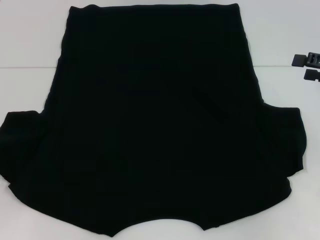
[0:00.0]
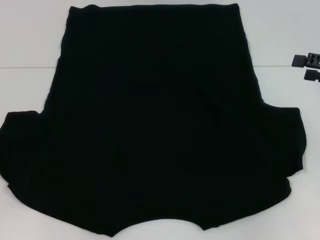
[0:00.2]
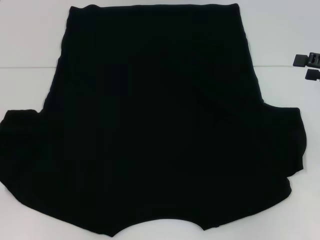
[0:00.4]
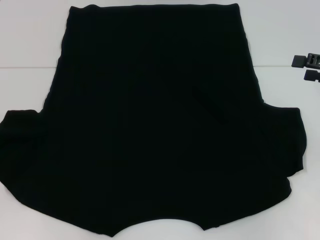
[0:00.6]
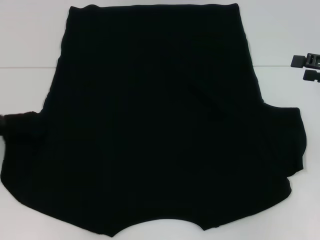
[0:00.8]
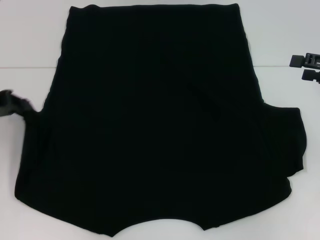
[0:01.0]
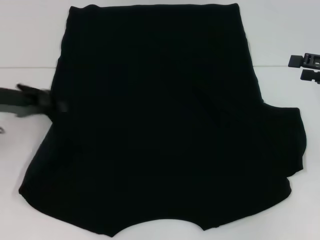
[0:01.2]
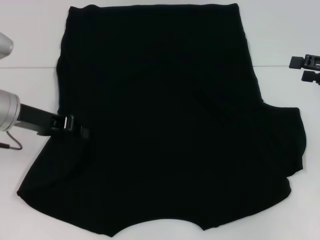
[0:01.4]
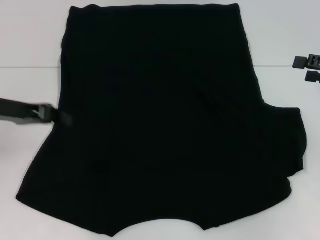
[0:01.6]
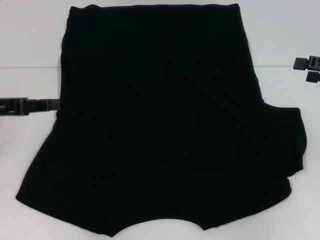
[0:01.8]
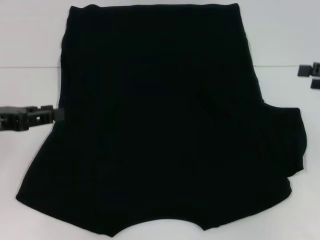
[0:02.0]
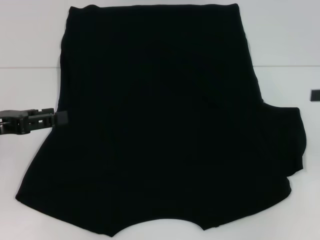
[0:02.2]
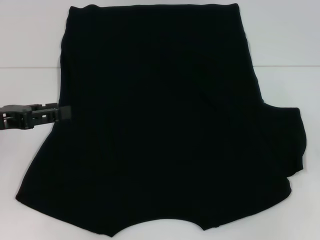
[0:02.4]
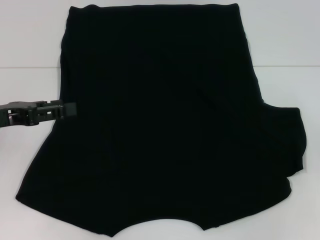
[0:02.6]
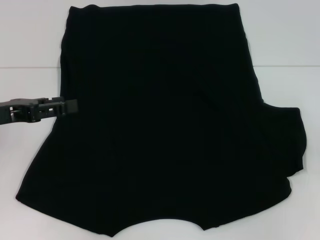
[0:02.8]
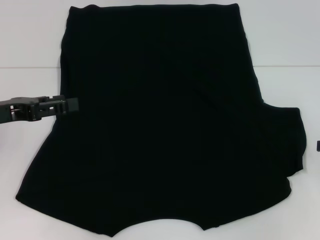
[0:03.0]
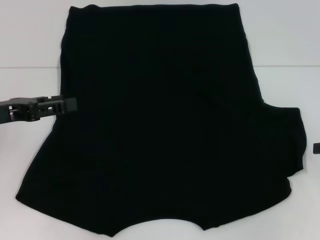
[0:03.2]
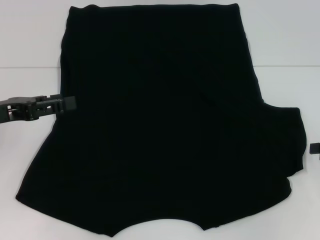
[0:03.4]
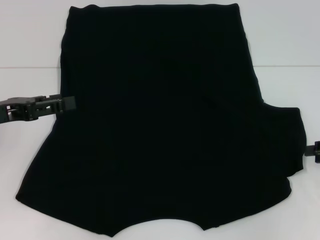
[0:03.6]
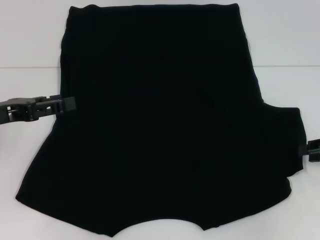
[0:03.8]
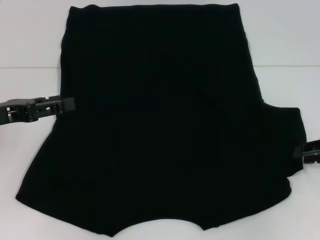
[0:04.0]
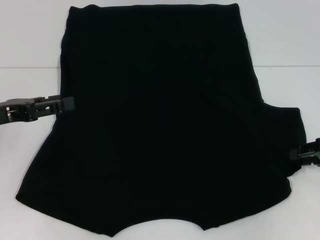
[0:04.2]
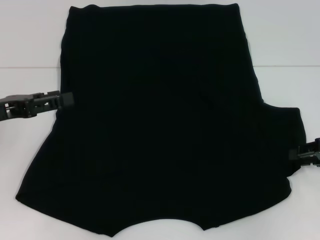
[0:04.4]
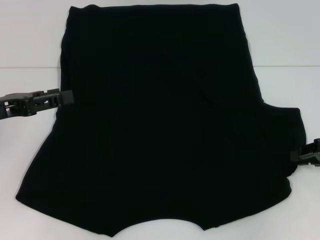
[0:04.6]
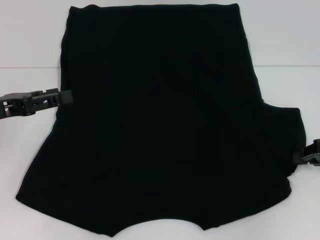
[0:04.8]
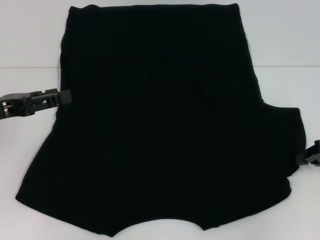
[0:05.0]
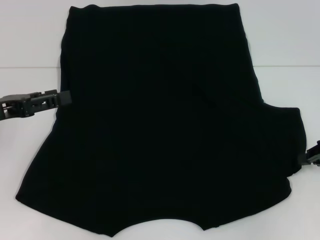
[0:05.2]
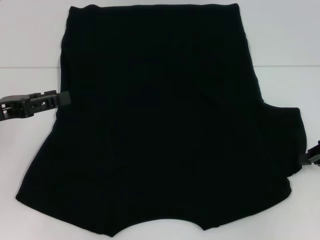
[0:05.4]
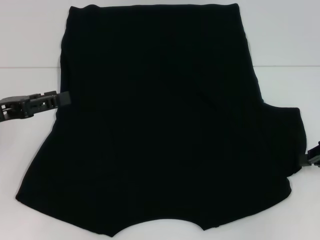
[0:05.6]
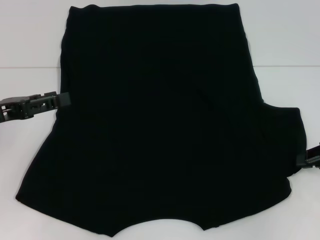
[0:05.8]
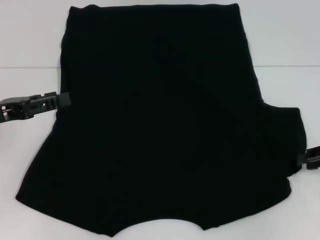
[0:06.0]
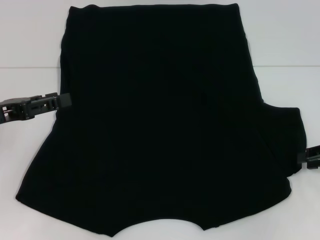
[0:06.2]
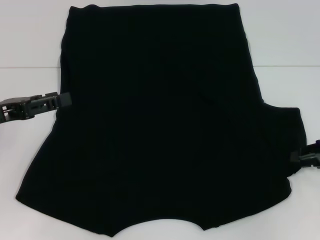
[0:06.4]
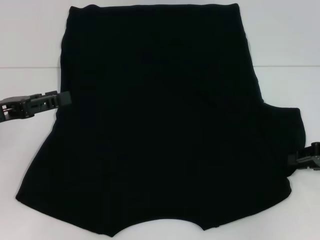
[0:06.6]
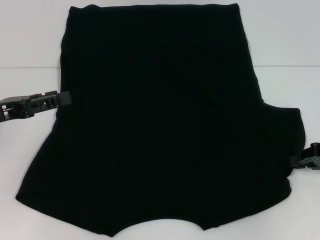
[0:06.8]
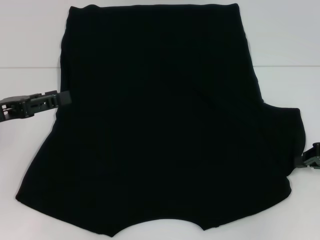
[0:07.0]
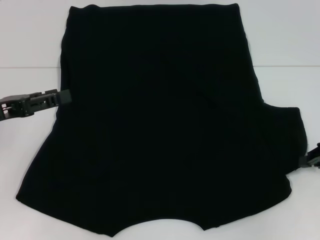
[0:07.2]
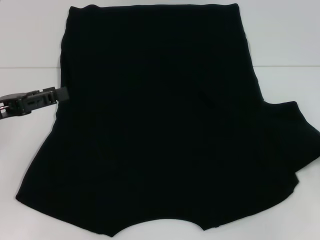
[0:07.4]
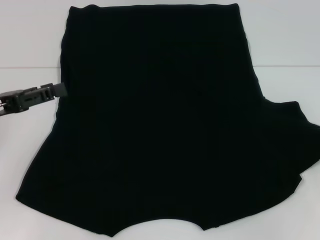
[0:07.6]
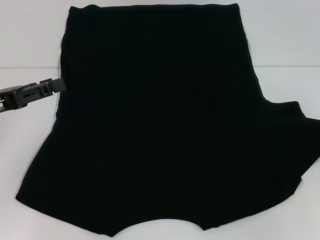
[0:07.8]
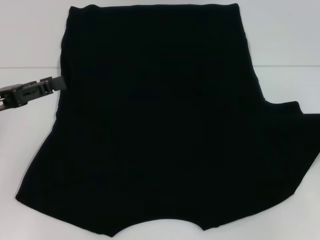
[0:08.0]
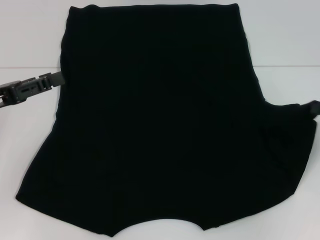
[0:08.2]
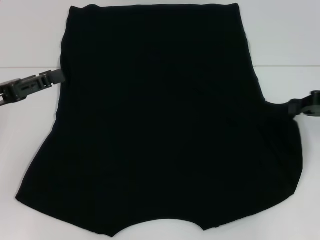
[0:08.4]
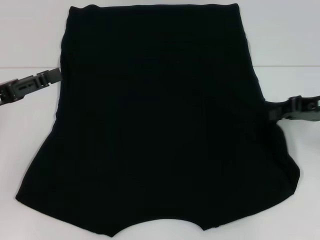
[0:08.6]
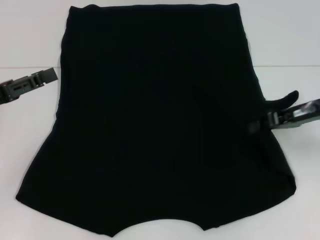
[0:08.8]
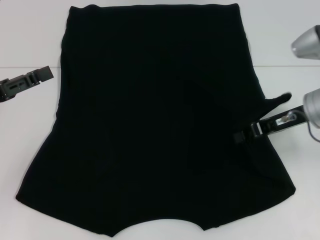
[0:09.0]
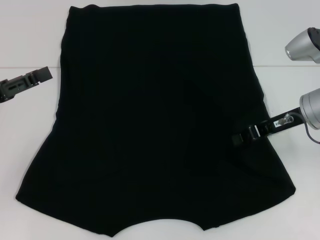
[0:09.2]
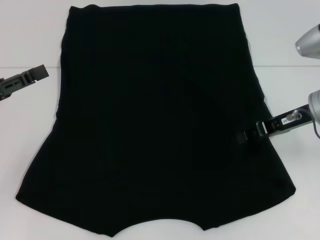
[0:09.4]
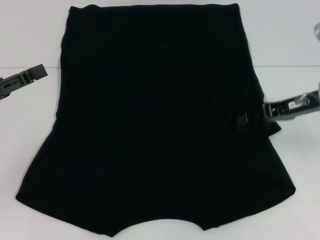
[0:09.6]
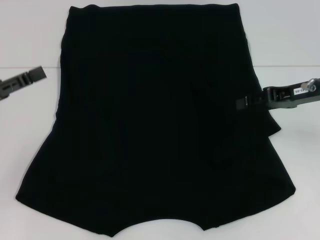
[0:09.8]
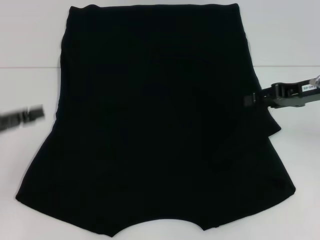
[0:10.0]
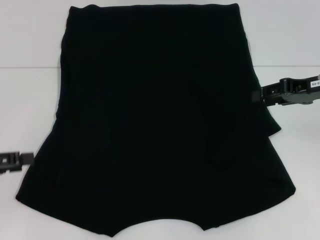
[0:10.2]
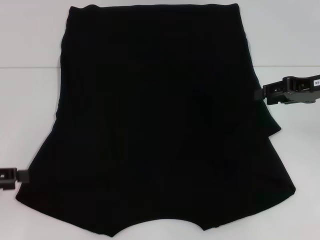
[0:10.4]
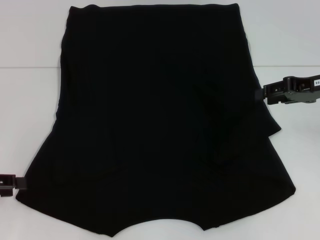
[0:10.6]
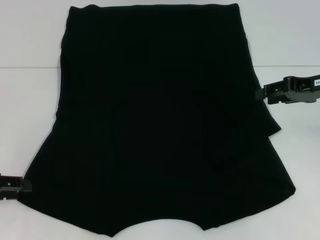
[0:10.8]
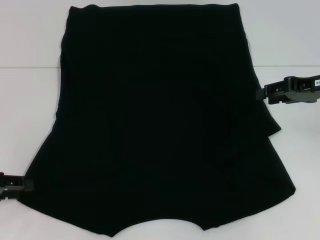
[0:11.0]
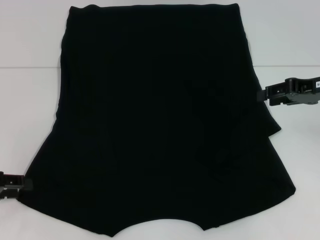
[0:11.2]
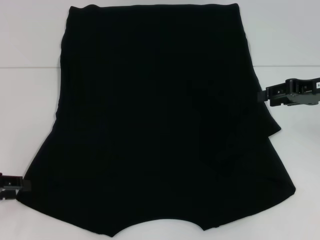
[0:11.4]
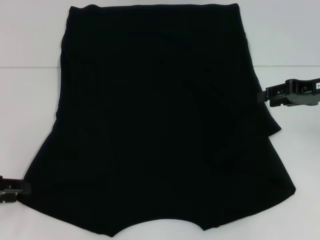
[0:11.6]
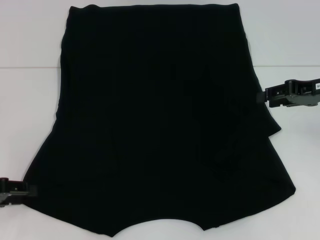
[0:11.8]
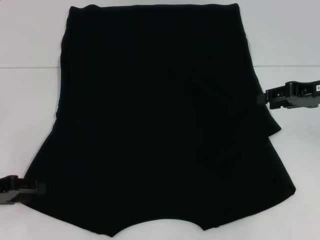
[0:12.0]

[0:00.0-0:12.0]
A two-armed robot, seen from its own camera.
Step, 0:00.0 to 0:02.0: Fold the bottom left sleeve with your left hand.
Step, 0:02.2 to 0:10.0: Fold the bottom right sleeve with your right hand.
0:00.0 to 0:01.6: The left gripper travels to the right, upward and forward by about 10 cm.
0:01.6 to 0:03.0: The left gripper opens its fingers. The right gripper moves some 5 cm, and closes up.
0:04.4 to 0:06.0: Neither gripper changes place.
0:06.0 to 0:07.6: The grippers stay close to where they were, moving slightly.
0:07.6 to 0:09.0: The right gripper shifts roughly 15 cm to the left.
0:09.0 to 0:10.4: The right gripper travels to the right by about 5 cm, and opens its fingers. Meanwhile the left gripper shifts by roughly 5 cm.
0:10.4 to 0:12.0: The left gripper changes place by approximately 5 cm.

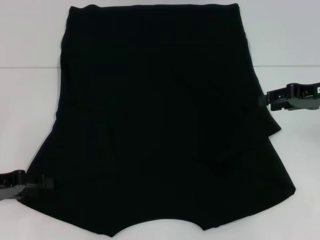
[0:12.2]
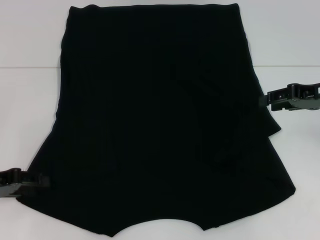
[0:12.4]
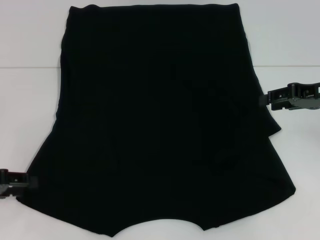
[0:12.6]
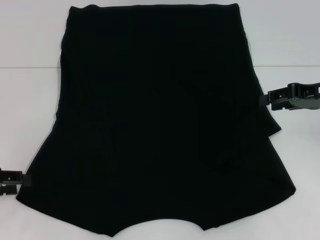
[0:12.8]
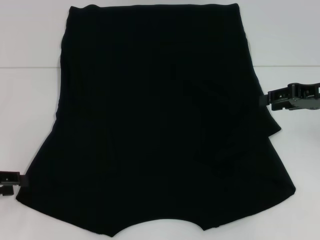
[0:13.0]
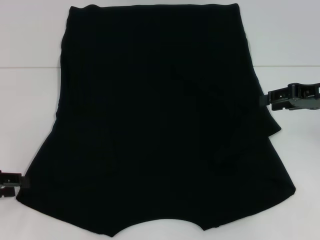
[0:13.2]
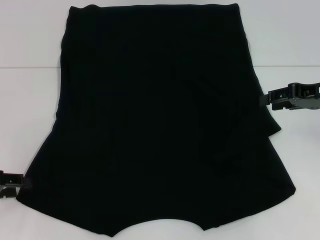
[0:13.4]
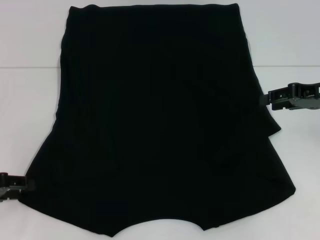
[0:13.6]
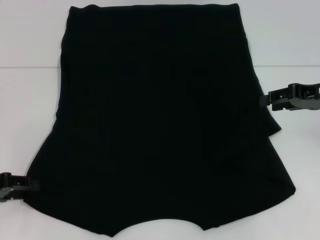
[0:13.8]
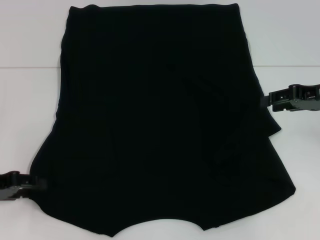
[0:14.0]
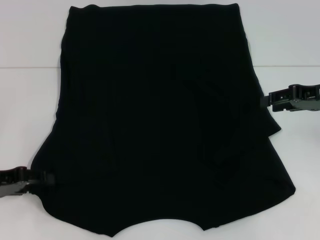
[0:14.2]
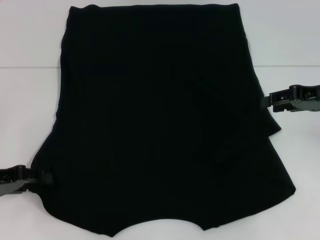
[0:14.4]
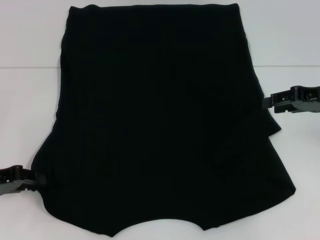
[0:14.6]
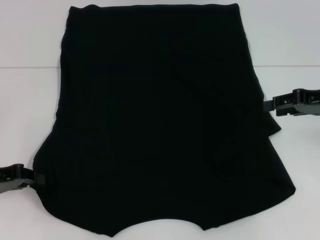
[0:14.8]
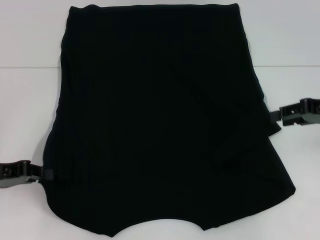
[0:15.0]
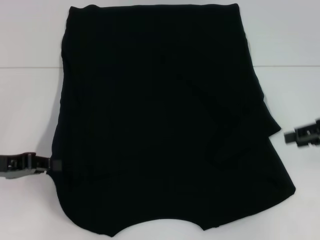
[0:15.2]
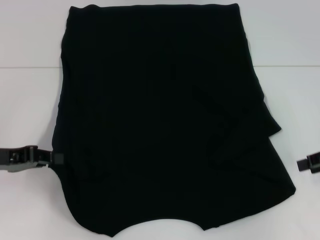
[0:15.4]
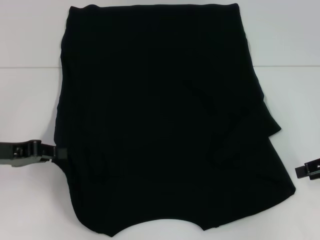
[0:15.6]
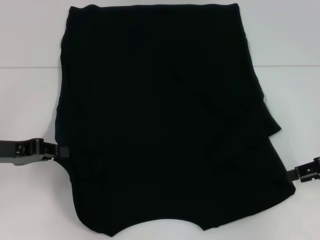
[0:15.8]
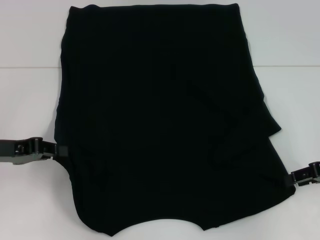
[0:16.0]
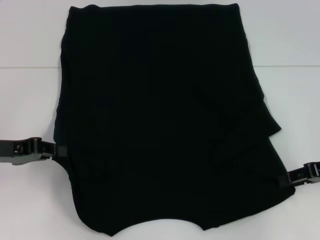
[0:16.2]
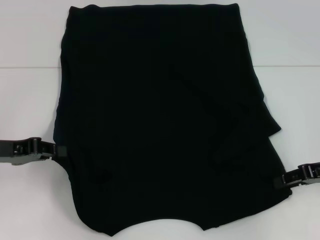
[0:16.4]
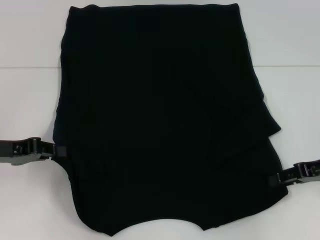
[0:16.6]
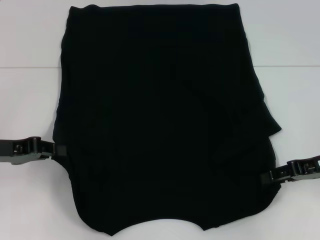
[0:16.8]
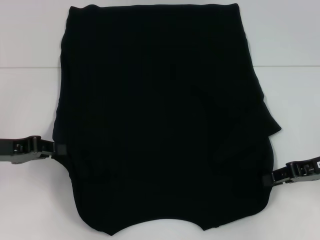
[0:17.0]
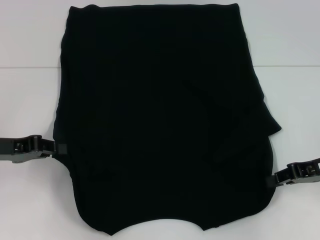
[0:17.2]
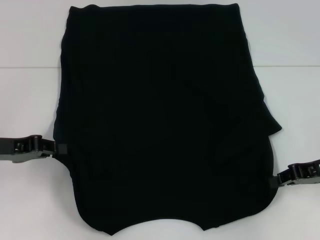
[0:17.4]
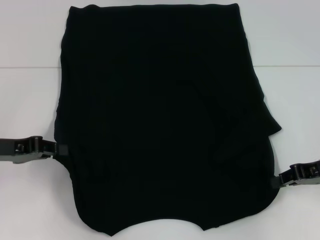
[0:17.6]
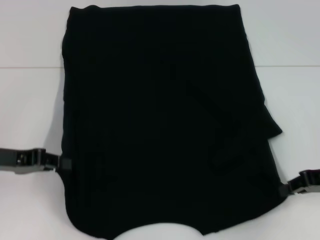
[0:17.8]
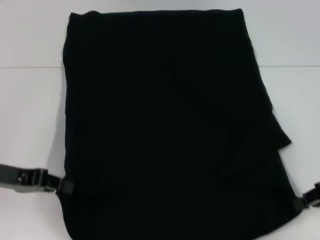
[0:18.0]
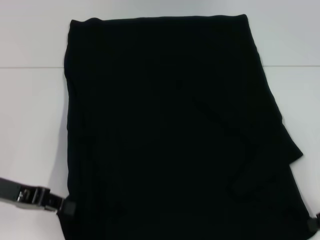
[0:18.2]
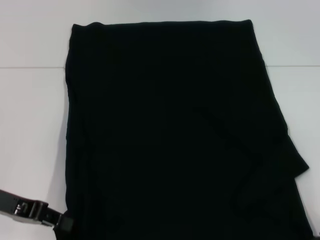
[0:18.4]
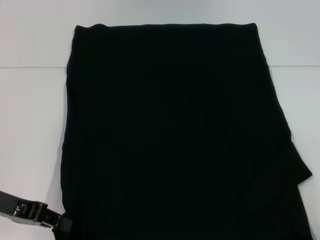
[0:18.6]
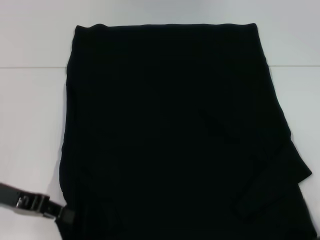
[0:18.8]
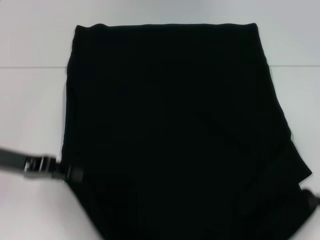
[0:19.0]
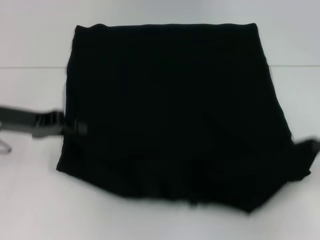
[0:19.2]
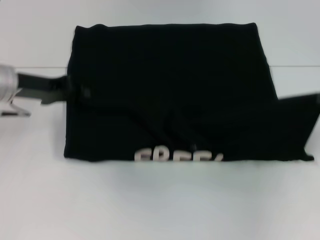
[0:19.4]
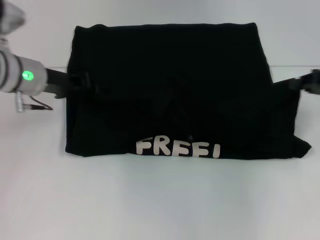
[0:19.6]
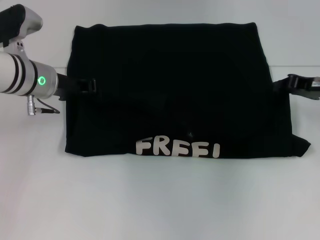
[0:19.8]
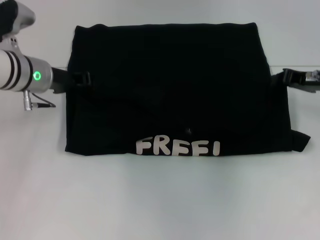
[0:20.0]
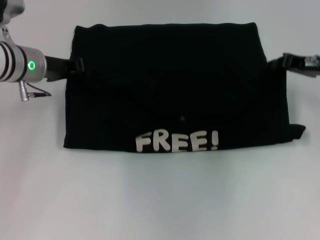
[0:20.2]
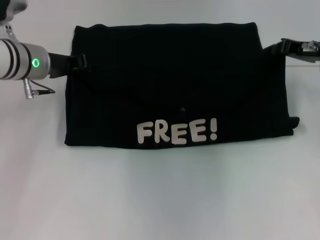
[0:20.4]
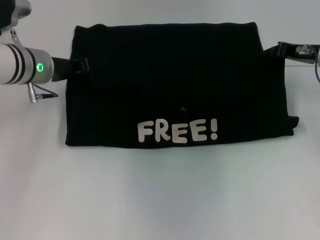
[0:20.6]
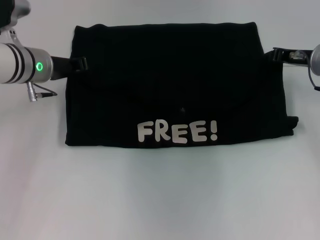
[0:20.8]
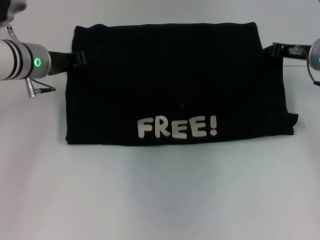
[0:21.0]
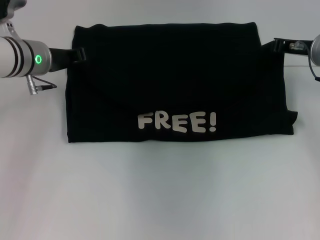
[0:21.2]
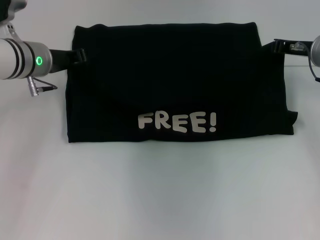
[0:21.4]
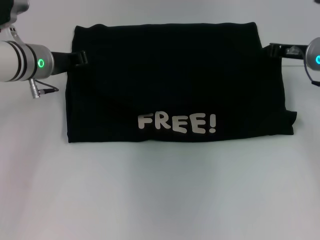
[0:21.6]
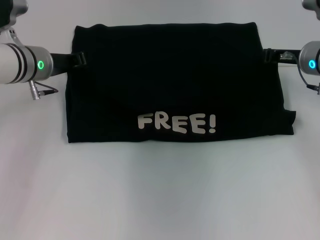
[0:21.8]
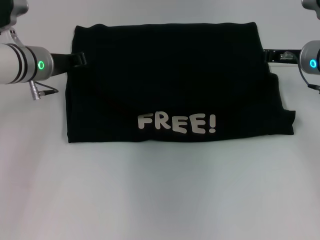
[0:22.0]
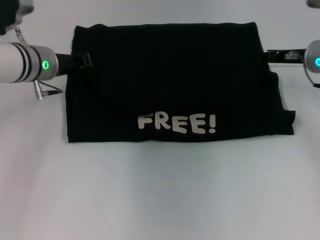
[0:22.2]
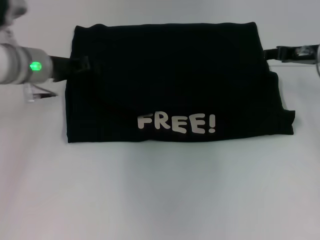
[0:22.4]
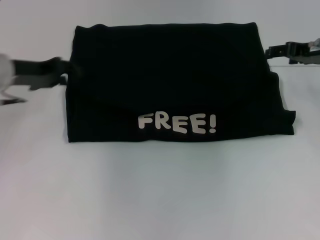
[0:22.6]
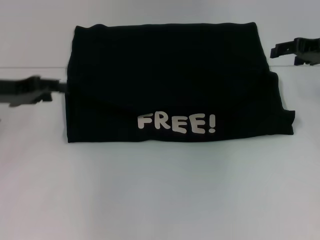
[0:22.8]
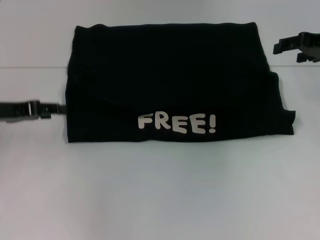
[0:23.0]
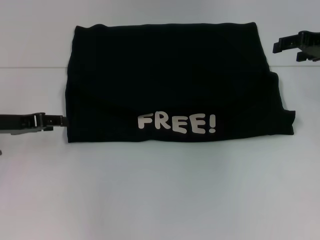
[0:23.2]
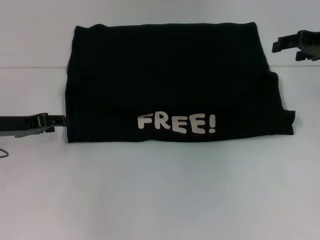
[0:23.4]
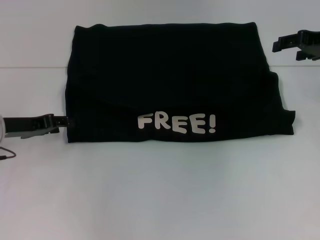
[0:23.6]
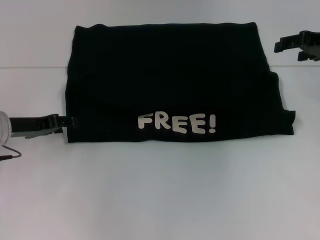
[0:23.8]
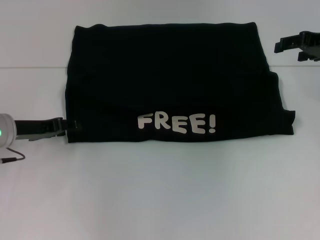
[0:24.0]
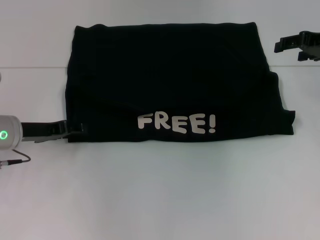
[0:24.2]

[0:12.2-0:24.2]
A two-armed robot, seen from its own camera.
Step, 0:12.2 to 0:17.0: Grab the bottom left corner with your left hand.
Step, 0:12.2 to 0:17.0: Grab the bottom right corner with your right hand.
Step, 0:17.2 to 0:22.2: Fold the clothes with your left hand.
Step, 0:17.2 to 0:22.2: Fold the clothes with your right hand.
0:13.8 to 0:15.2: The right gripper shifts by roughly 5 cm, while the left gripper closes up.
0:15.2 to 0:16.6: The right gripper travels downward by approximately 5 cm.
0:16.6 to 0:18.2: The right gripper moves backward, roughly 5 cm, and closes.
0:18.2 to 0:19.8: The left gripper goes approximately 15 cm forward and to the right; the right gripper shifts approximately 15 cm forward.
0:19.8 to 0:21.2: The right gripper heads forward, covering roughly 5 cm.
0:21.2 to 0:22.6: The right gripper opens up. Meanwhile the left gripper moves to the left, some 5 cm.
0:22.6 to 0:24.2: The left gripper moves downward, approximately 10 cm.
